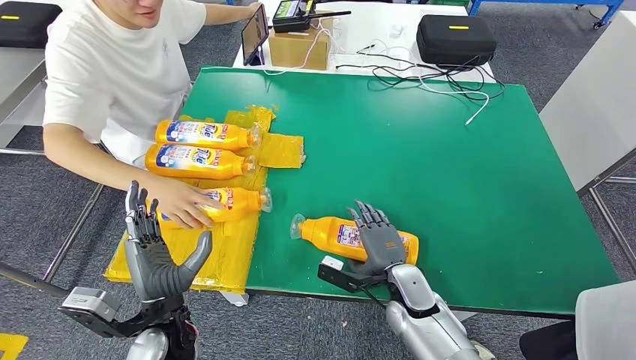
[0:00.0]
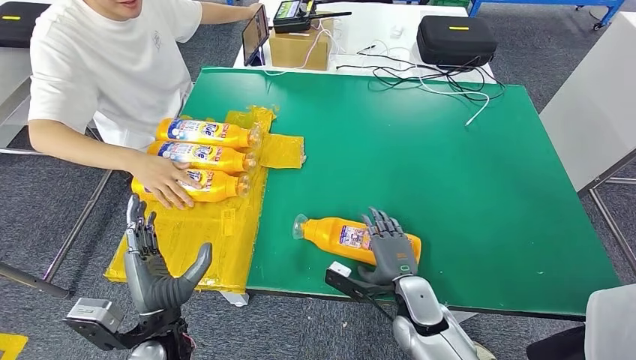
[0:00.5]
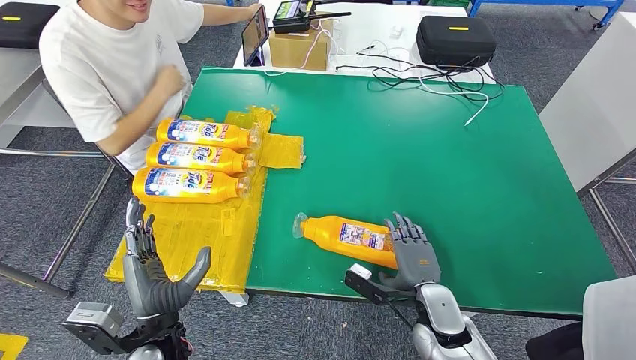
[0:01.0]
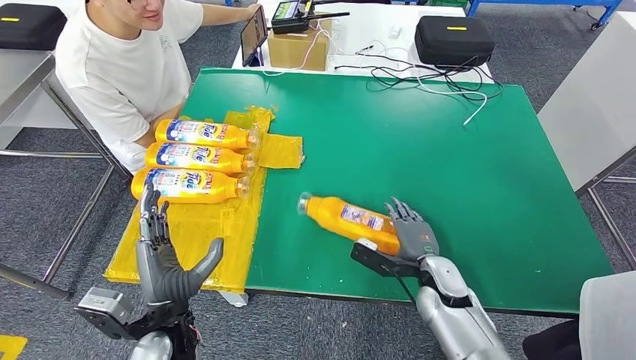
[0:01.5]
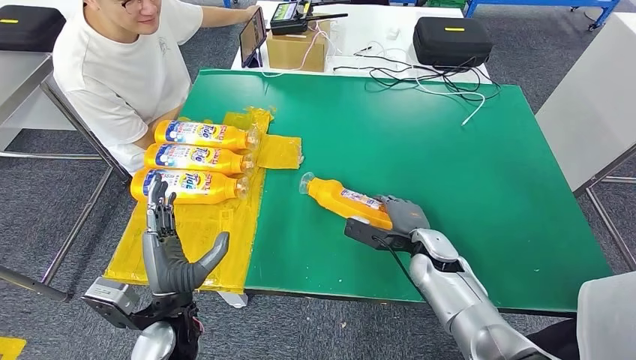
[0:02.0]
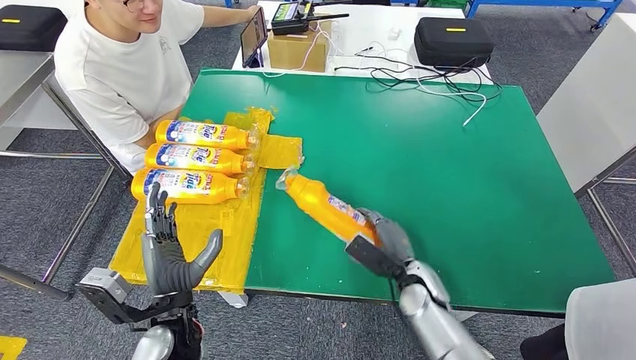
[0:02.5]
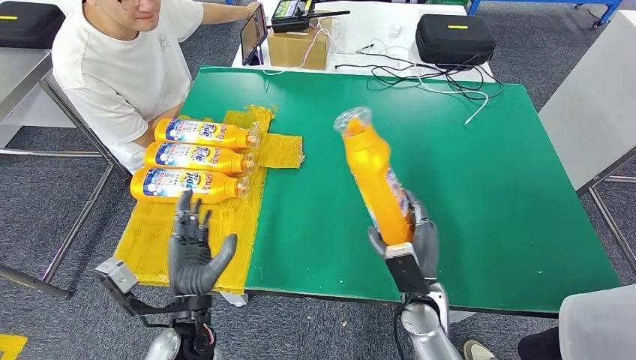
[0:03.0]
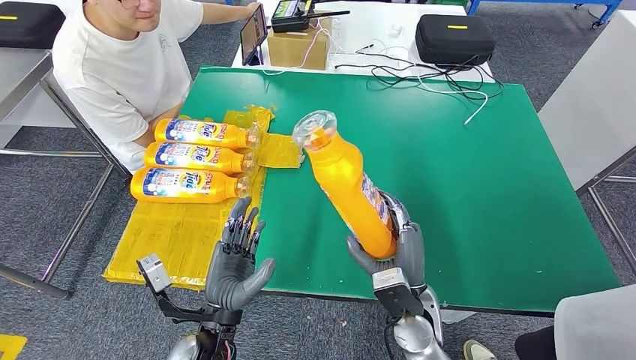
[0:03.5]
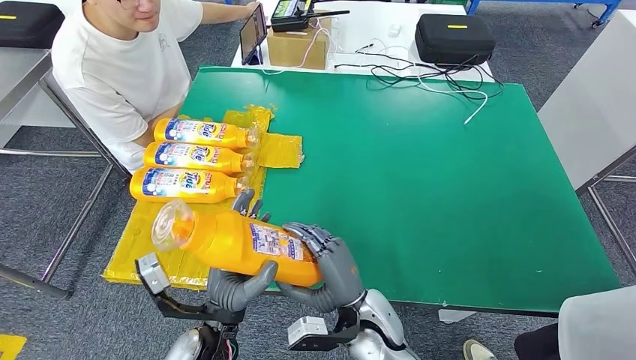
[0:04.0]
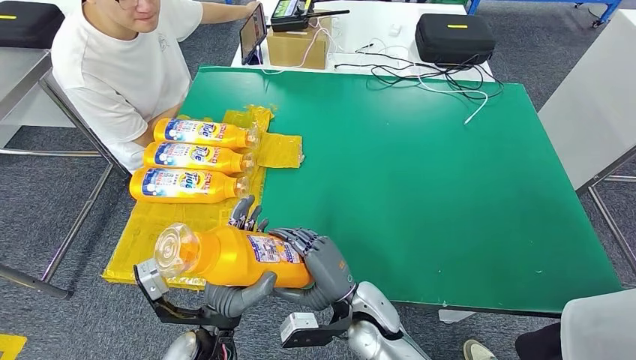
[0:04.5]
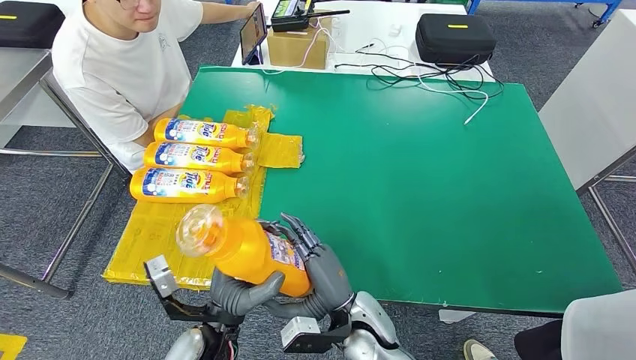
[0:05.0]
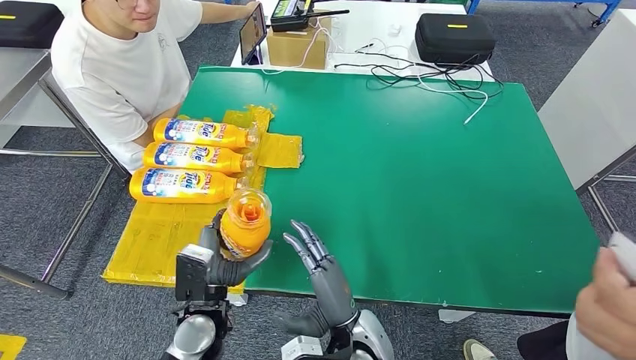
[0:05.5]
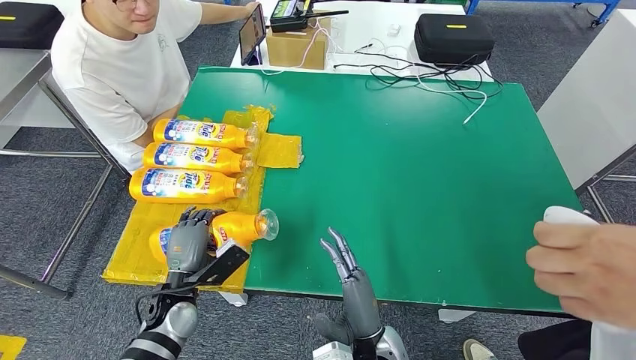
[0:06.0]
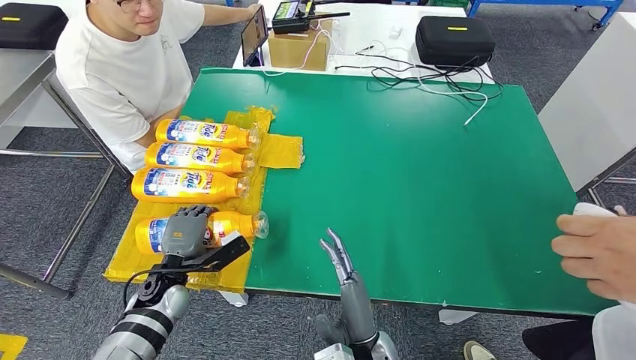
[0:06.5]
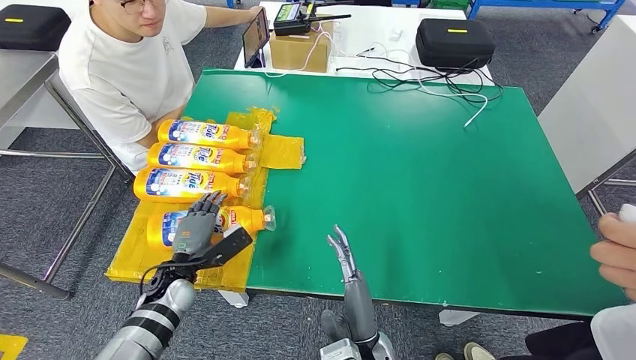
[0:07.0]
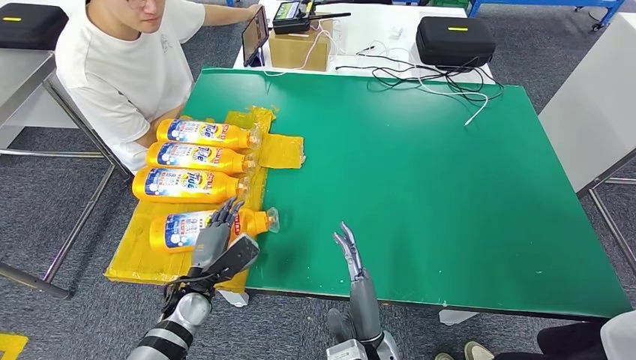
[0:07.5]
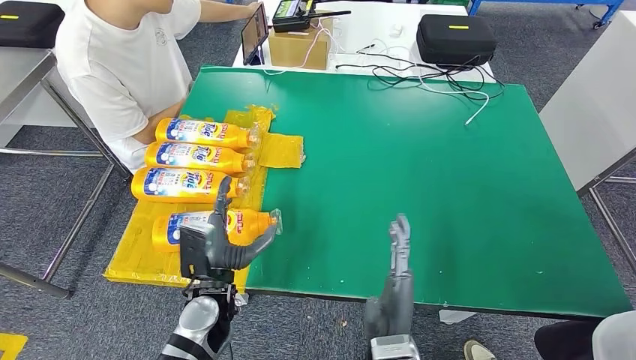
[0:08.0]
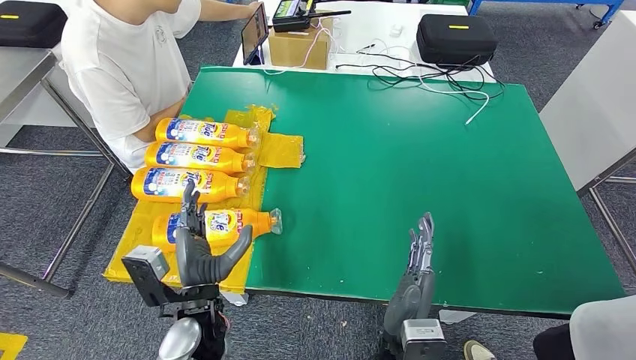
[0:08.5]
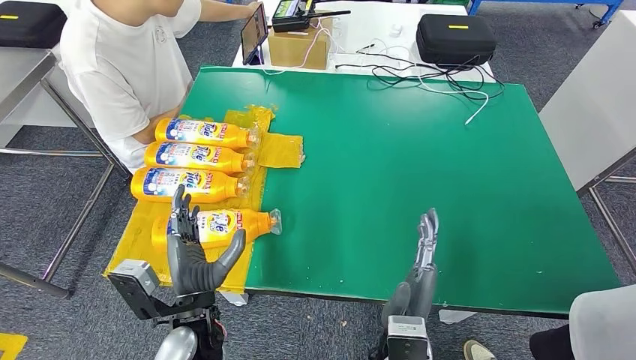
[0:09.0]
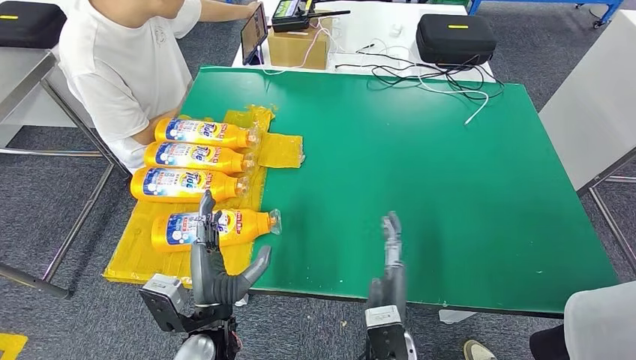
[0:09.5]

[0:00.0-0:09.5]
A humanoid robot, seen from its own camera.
Step, 0:00.5 to 0:05.0: Pick up the bottle from the table.
Step, 0:05.5 to 0:09.5: Flip the bottle to face forward.
0:04.0 to 0:05.5: The left hand moves roughly 5 cm.
0:05.5 to 0:07.5: The left hand shifts roughly 5 cm to the left.
0:07.5 to 0:09.5: The left hand shifts roughly 15 cm to the right, backward and upward.
